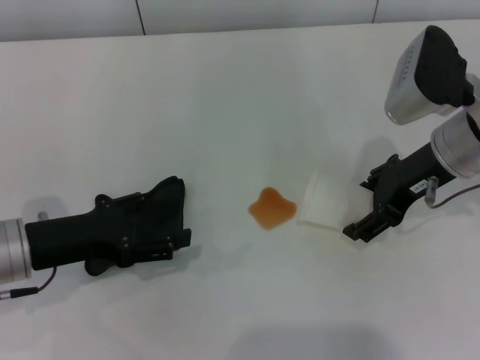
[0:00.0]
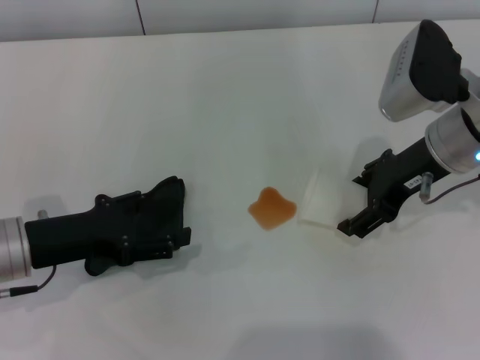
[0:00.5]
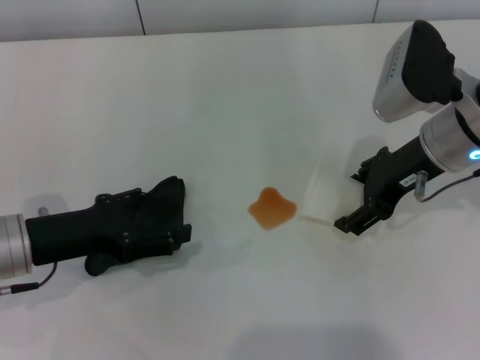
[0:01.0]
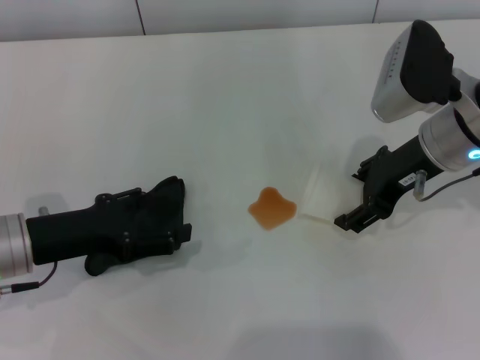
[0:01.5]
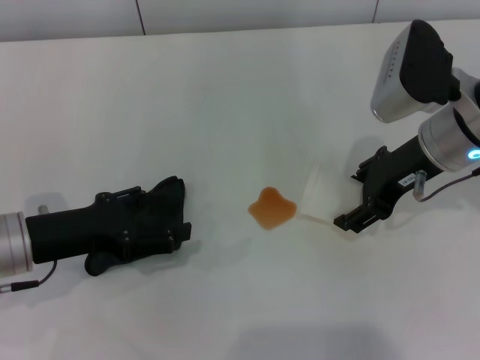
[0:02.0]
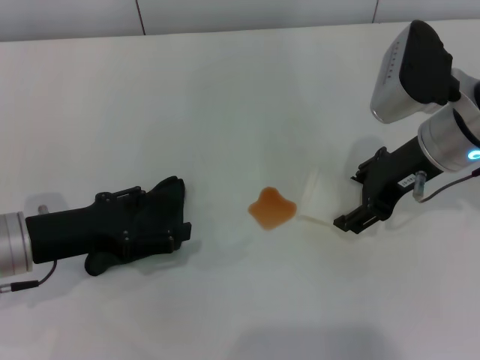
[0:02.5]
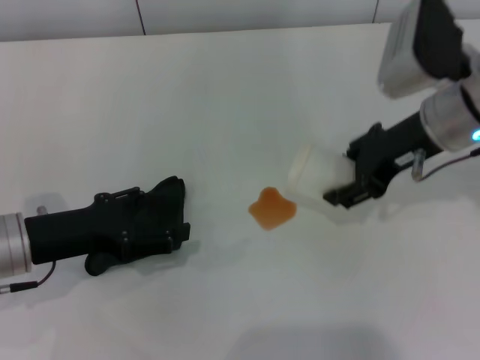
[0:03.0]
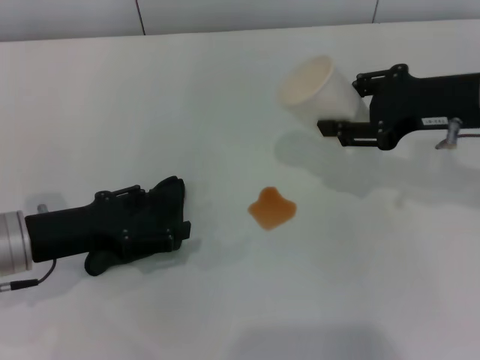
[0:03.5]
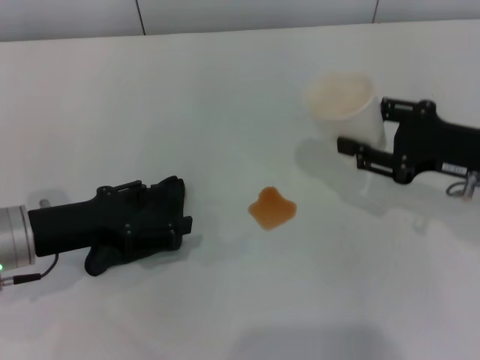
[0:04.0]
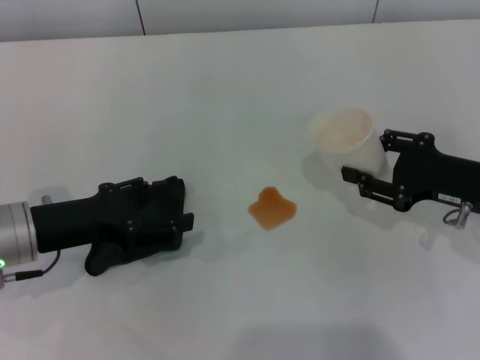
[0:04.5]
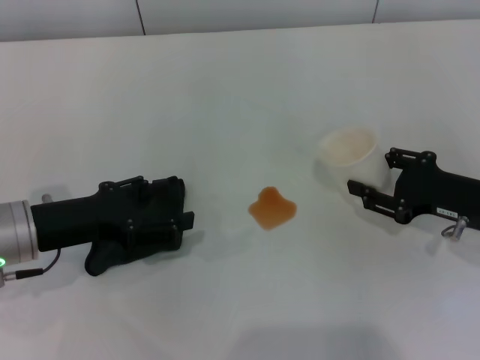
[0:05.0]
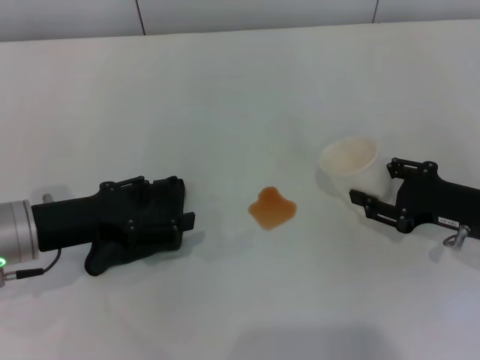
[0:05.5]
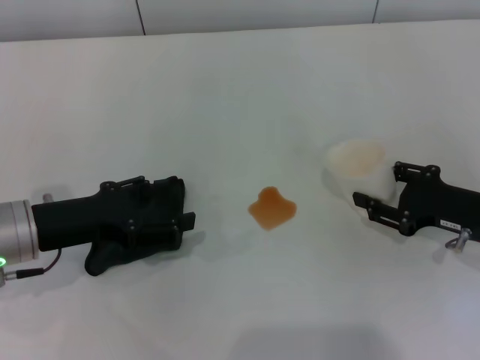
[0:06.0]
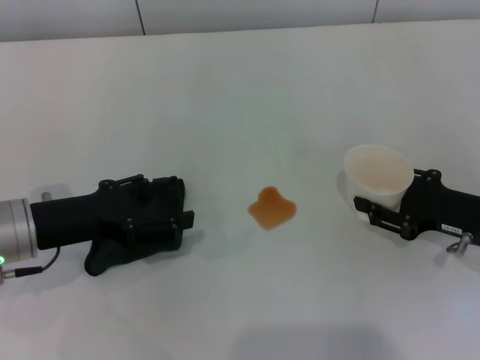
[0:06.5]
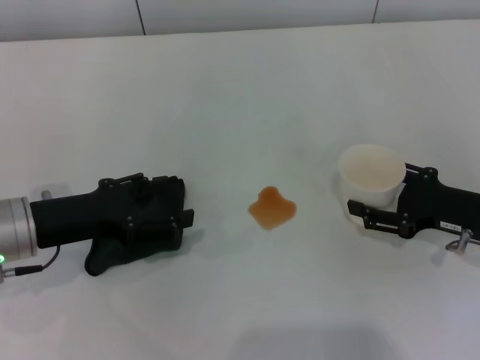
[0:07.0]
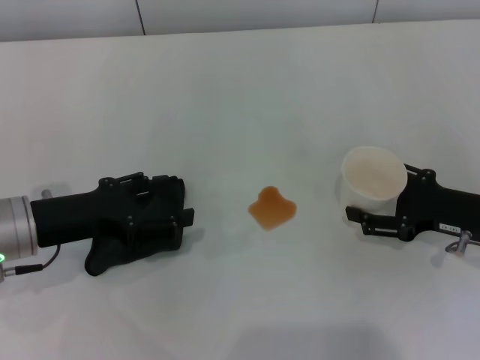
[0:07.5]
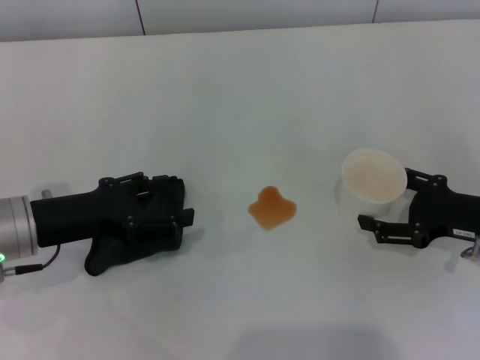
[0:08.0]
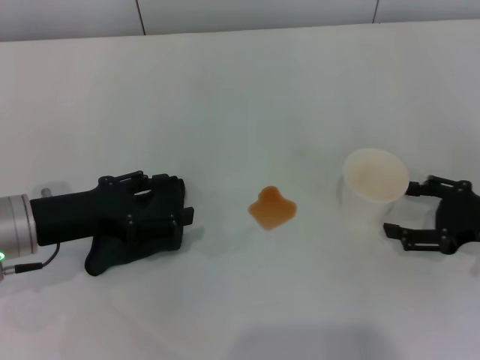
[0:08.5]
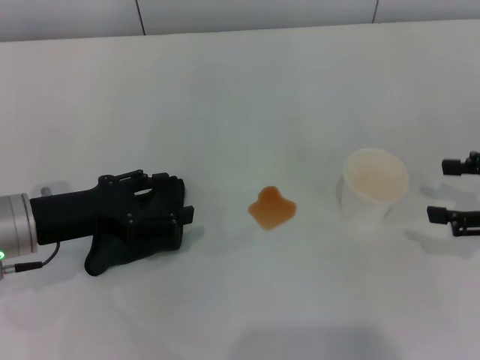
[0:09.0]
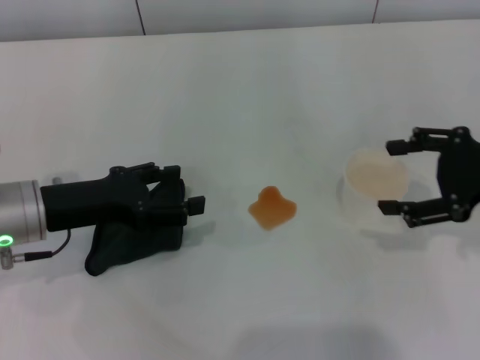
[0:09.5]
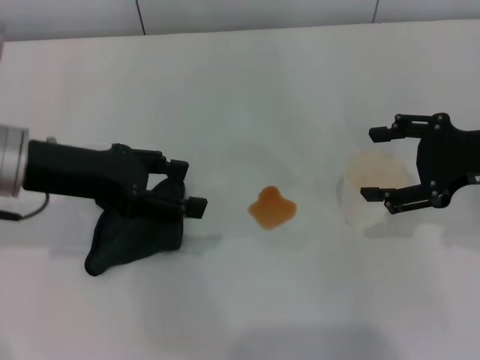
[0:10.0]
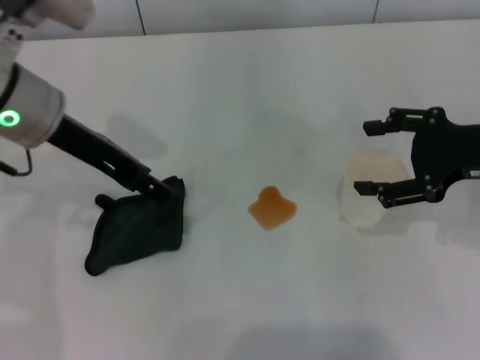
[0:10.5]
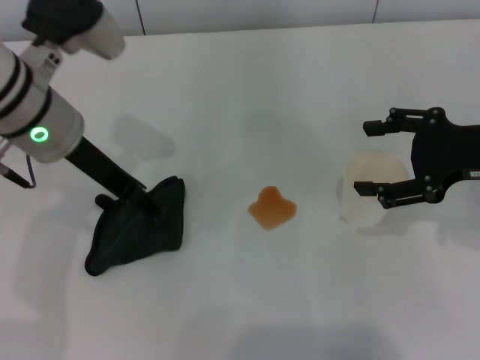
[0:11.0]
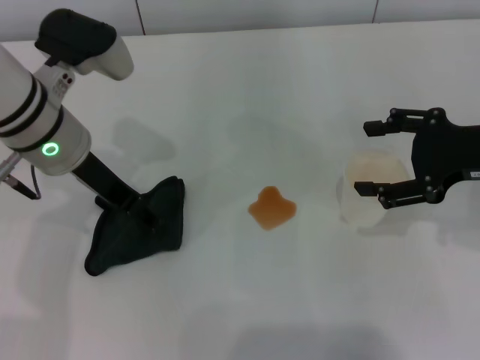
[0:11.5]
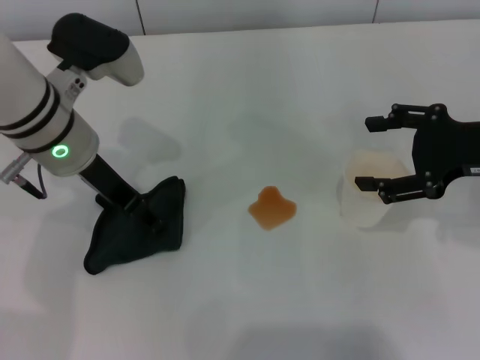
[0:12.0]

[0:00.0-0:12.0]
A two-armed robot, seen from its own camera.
Step, 0:01.5 to 0:08.5: Stand the paper cup upright with the right gripper.
0:00.0 to 0:02.0: Both grippers stay put.
0:02.0 to 0:04.0: The right gripper shifts some 10 cm to the right, and closes.
0:04.0 to 0:06.0: The right gripper goes roughly 5 cm downward.
0:06.0 to 0:08.0: The right gripper opens its fingers.
0:08.0 to 0:10.0: The two grippers go roughly 10 cm upward.
0:10.0 to 0:12.0: The left gripper shifts some 10 cm to the right and forward.

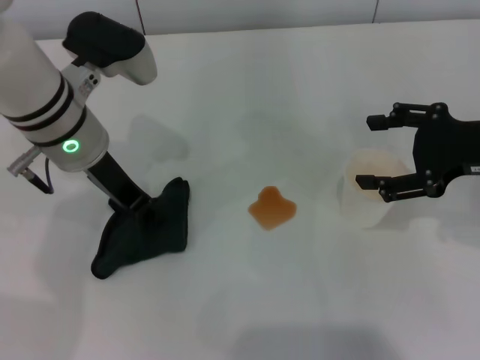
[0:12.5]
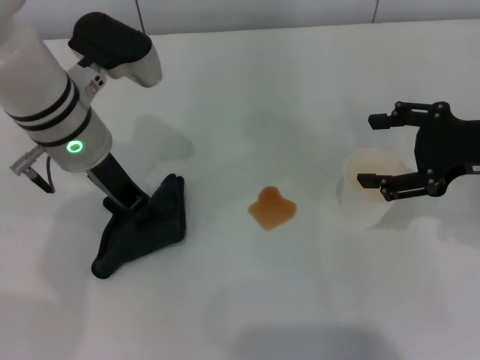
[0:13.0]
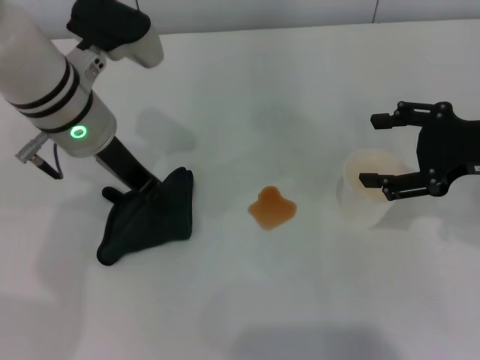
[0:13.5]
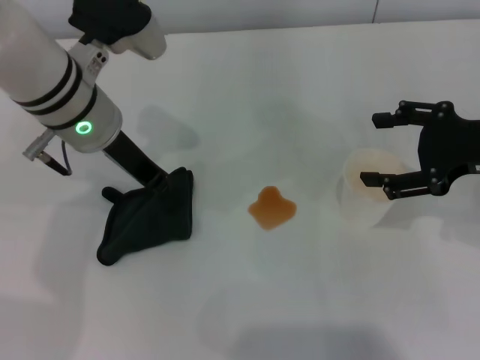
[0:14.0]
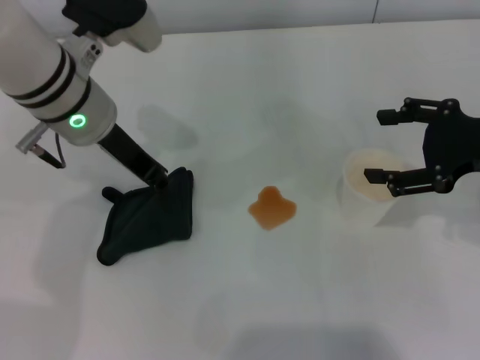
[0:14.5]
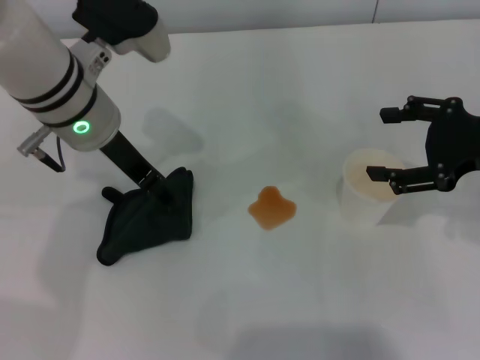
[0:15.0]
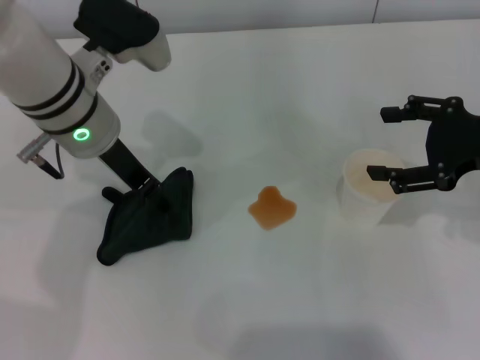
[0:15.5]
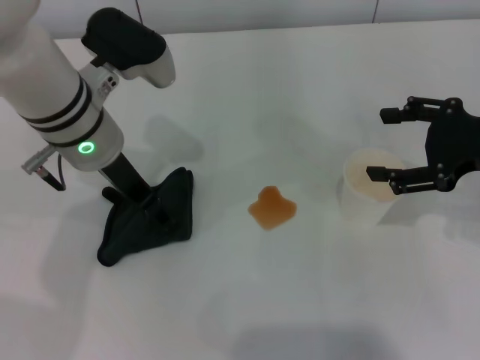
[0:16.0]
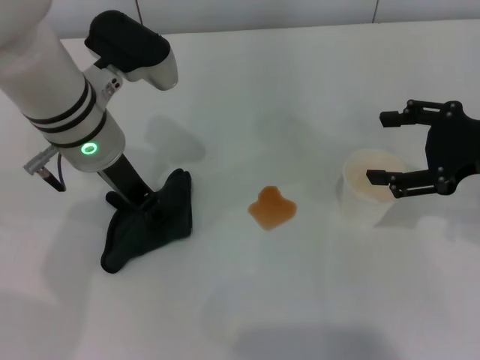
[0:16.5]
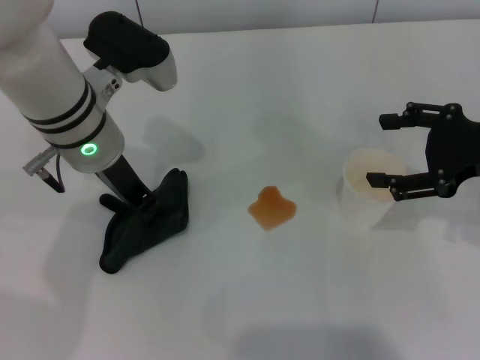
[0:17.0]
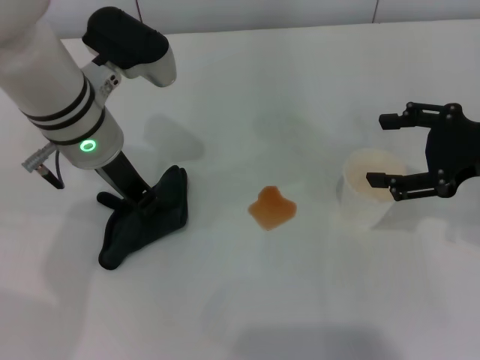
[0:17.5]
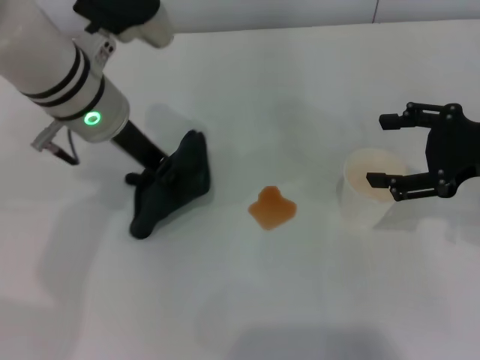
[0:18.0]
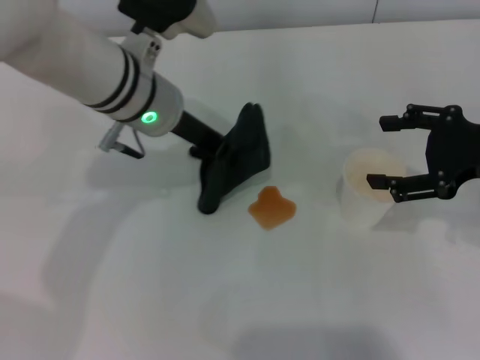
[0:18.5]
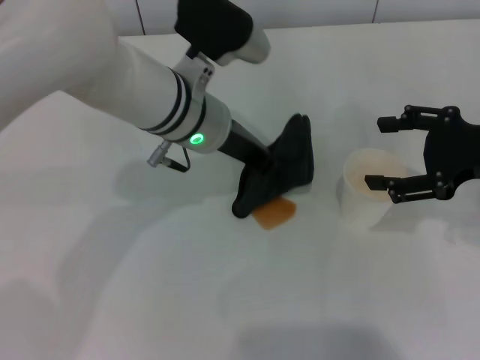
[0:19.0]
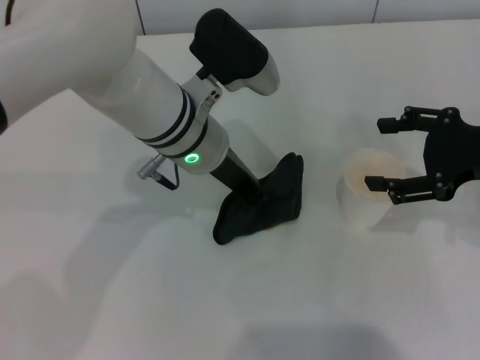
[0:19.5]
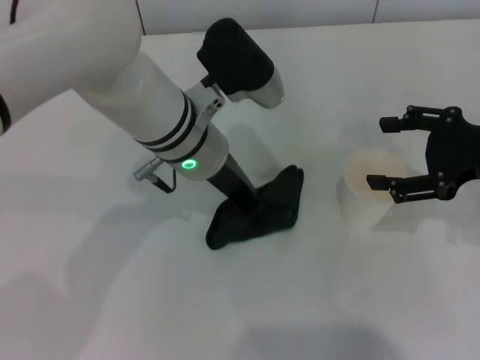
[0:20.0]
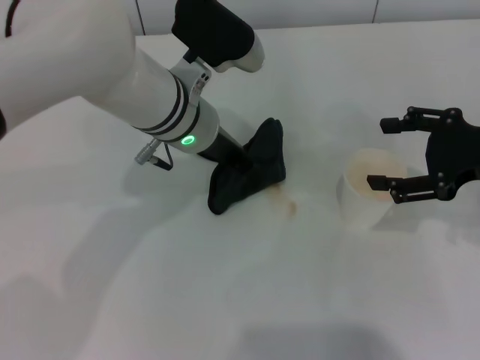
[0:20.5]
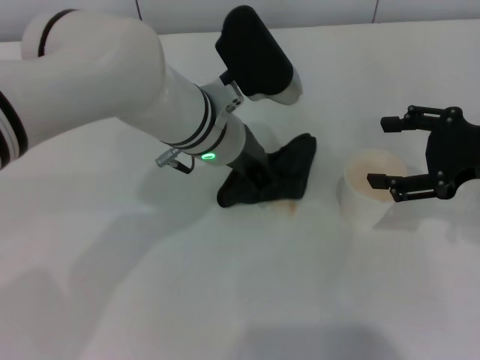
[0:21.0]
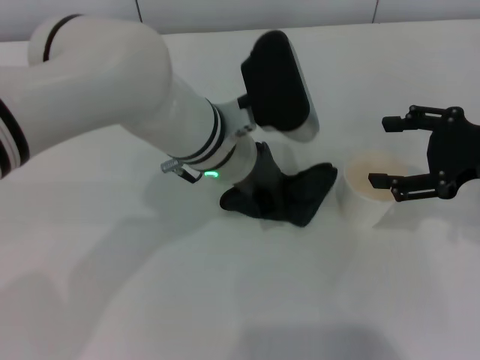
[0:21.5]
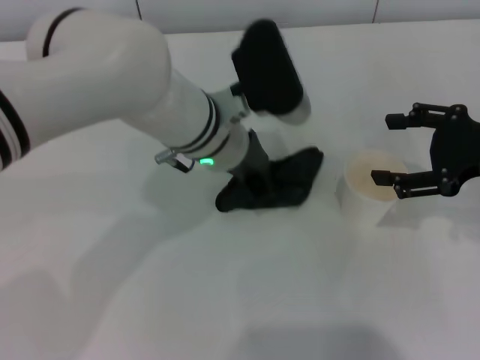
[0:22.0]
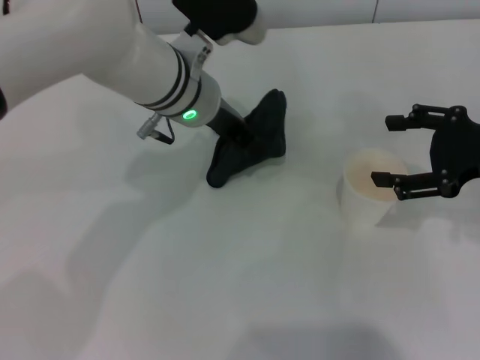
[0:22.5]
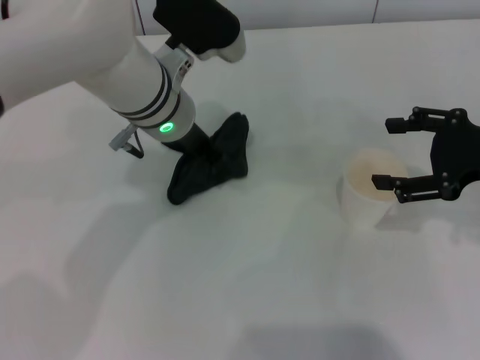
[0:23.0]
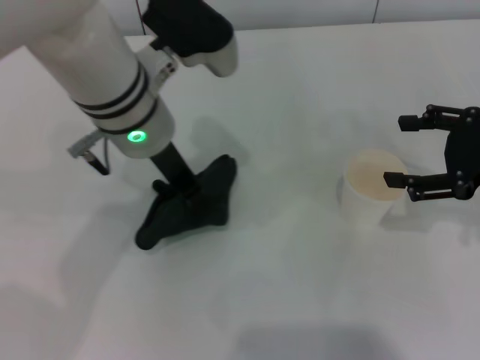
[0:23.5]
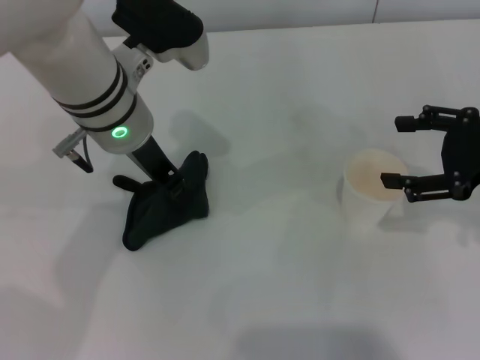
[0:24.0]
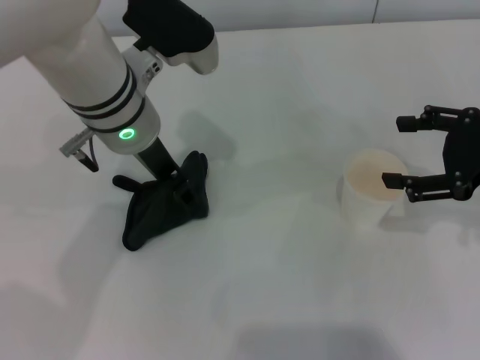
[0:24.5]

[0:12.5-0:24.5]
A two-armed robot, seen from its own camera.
Step, 0:13.5 to 0:23.5: Wipe the stains off the table with the left gripper.
0:12.5 to 0:14.5: The left gripper closes up.
0:14.5 to 0:16.5: The left gripper opens its fingers.
0:16.5 to 0:18.5: The left gripper closes its fingers.
0:22.5 to 0:24.5: The left gripper ends up roughly 5 cm from where it was, and opens.

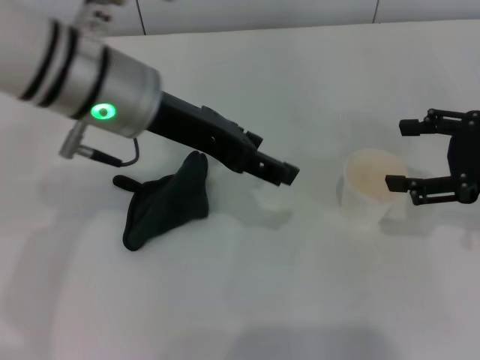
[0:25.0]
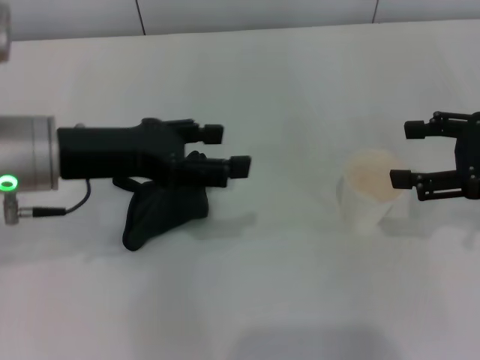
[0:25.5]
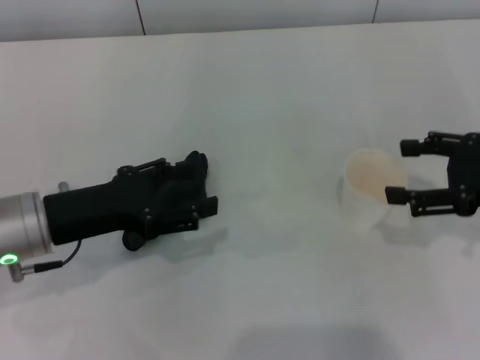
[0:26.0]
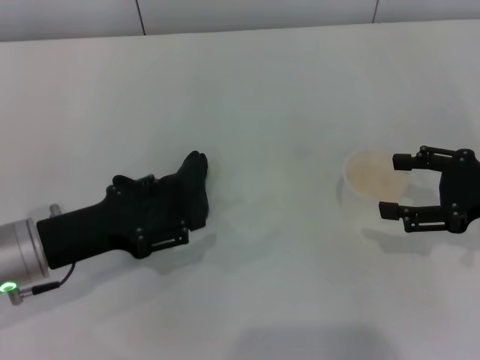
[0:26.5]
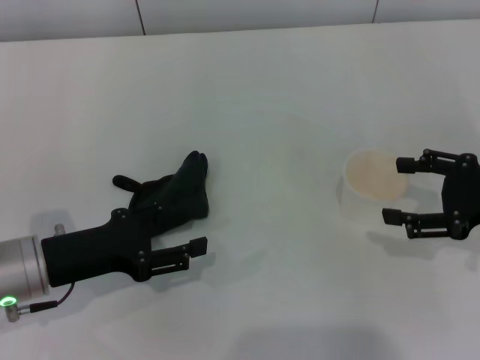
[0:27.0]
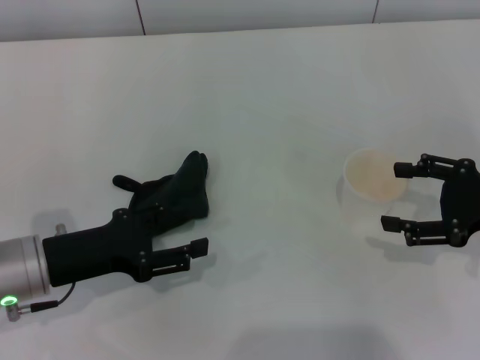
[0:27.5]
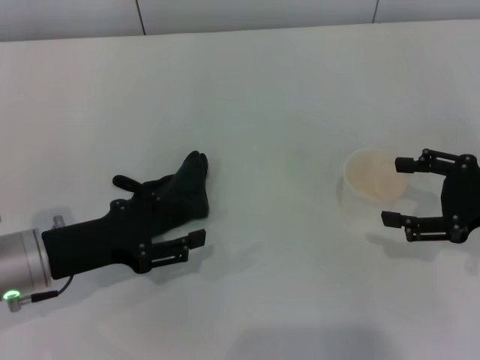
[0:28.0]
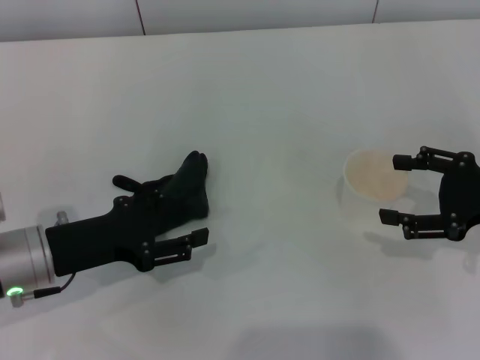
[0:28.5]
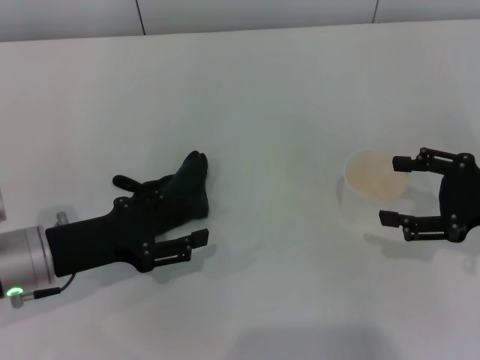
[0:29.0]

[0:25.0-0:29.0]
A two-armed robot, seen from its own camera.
Step, 0:25.0 to 0:27.0: Place the rag on the table with the left gripper.
0:25.0 to 0:27.0: The right gripper ends up roughly 5 cm from where it was; the left gripper is displaced downward, to the left and backward by approximately 20 cm.
0:27.0 to 0:29.0: The grippers move only a little.
